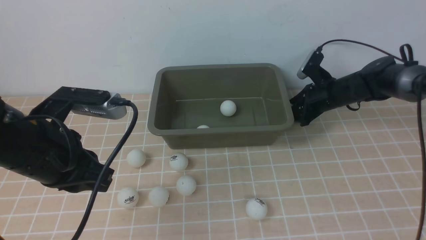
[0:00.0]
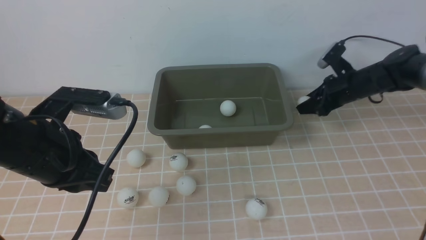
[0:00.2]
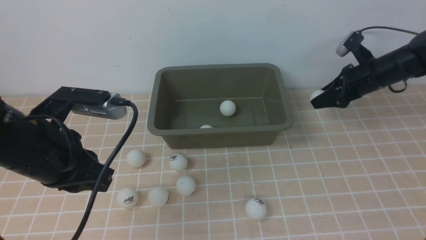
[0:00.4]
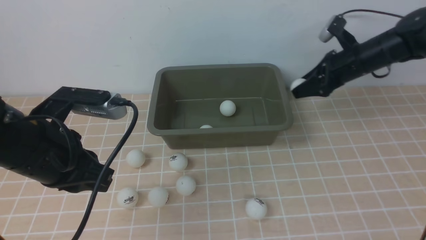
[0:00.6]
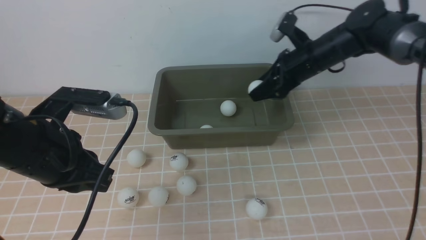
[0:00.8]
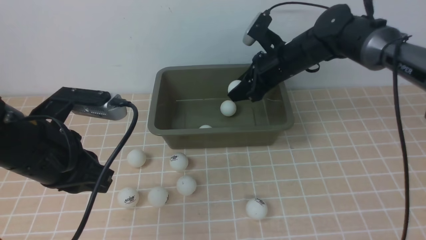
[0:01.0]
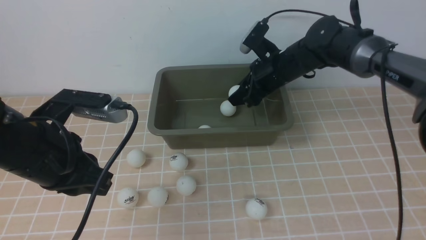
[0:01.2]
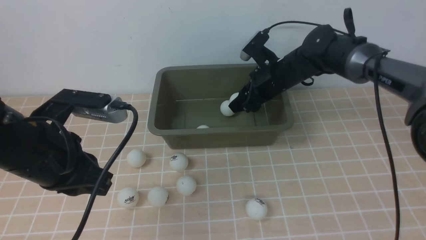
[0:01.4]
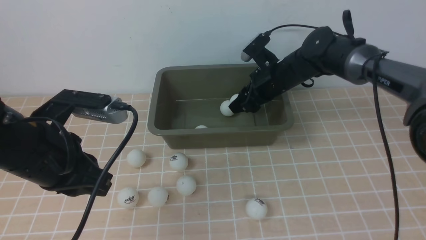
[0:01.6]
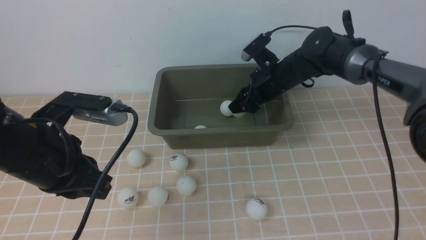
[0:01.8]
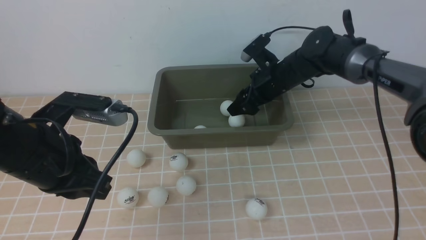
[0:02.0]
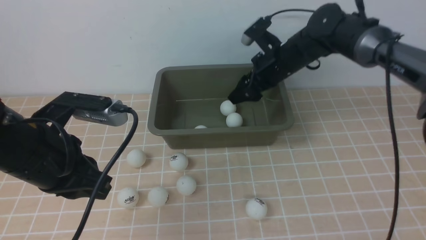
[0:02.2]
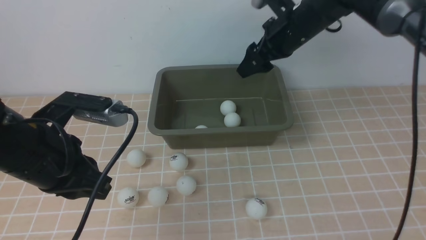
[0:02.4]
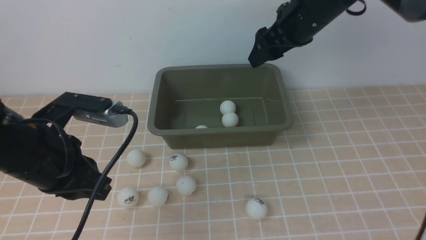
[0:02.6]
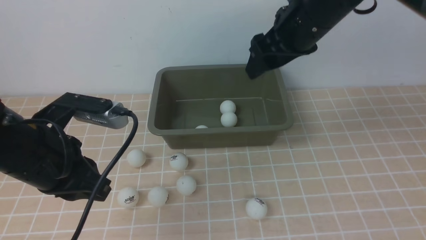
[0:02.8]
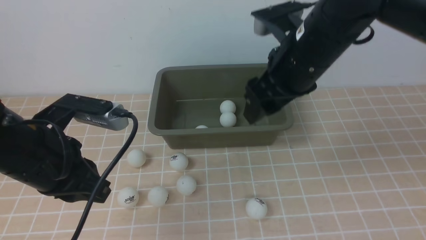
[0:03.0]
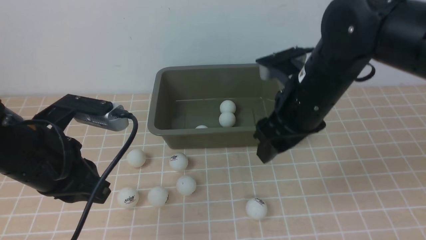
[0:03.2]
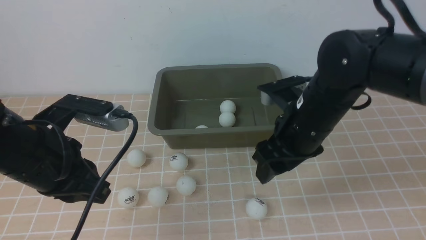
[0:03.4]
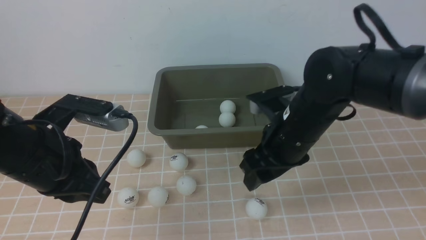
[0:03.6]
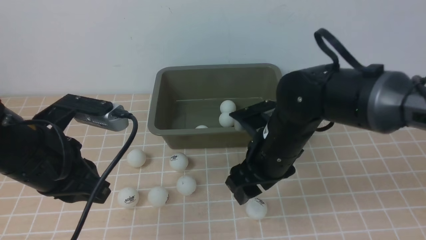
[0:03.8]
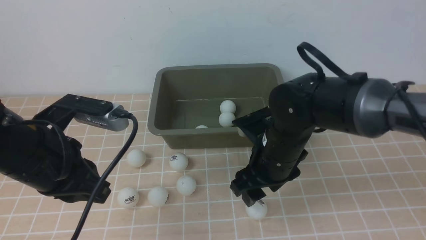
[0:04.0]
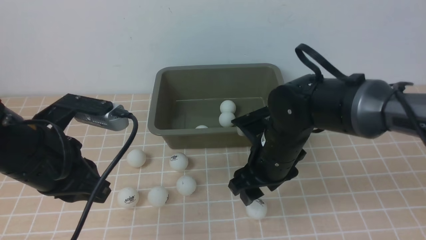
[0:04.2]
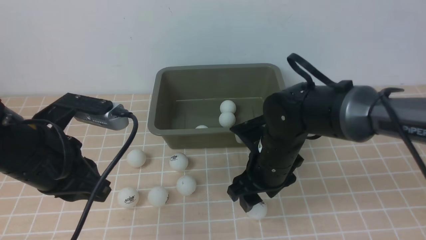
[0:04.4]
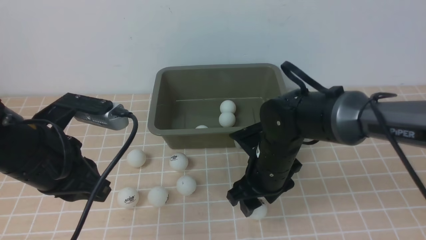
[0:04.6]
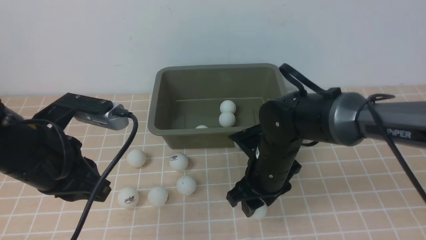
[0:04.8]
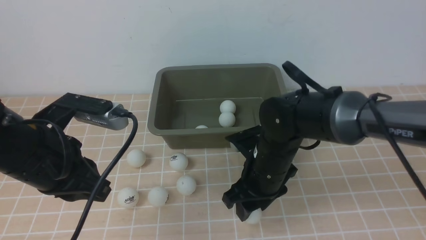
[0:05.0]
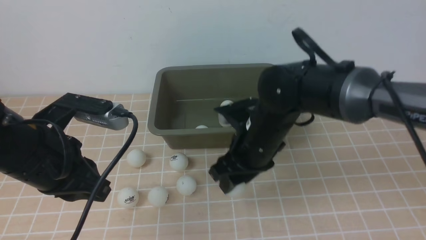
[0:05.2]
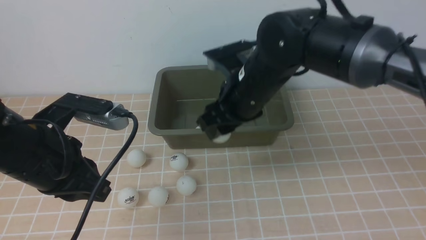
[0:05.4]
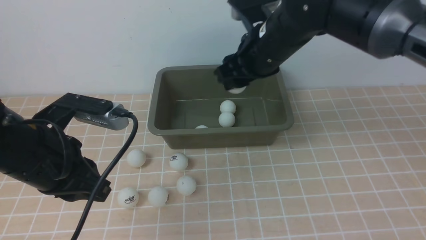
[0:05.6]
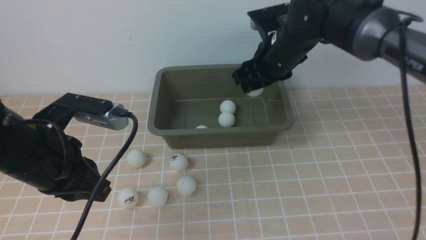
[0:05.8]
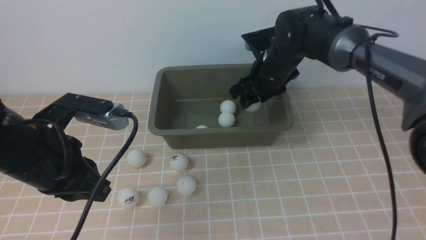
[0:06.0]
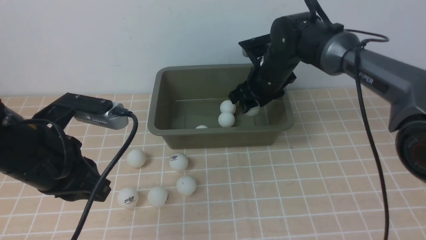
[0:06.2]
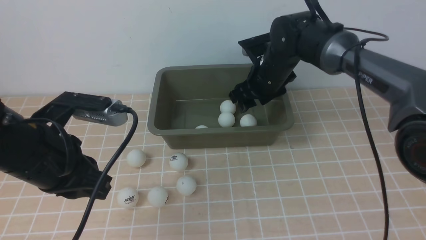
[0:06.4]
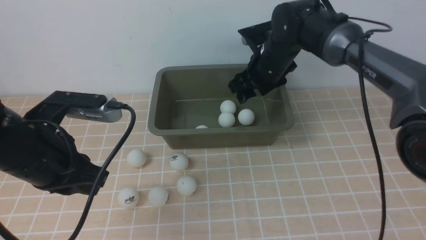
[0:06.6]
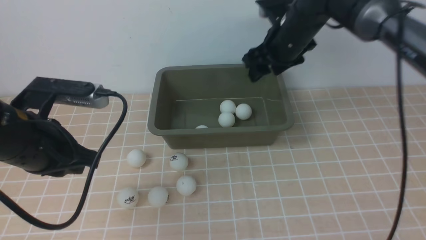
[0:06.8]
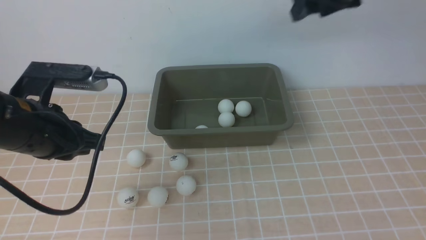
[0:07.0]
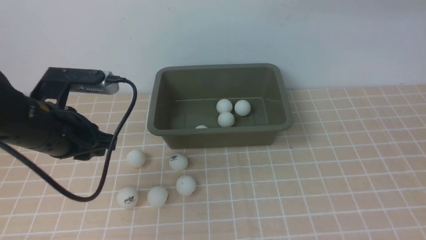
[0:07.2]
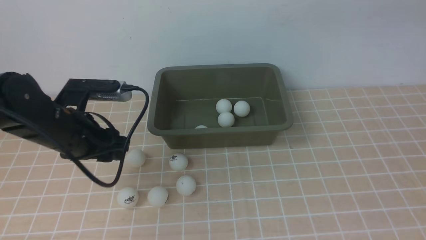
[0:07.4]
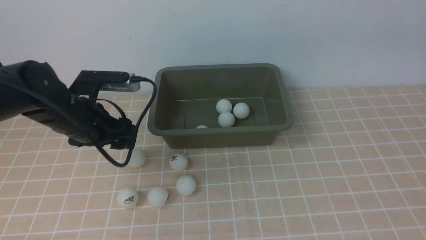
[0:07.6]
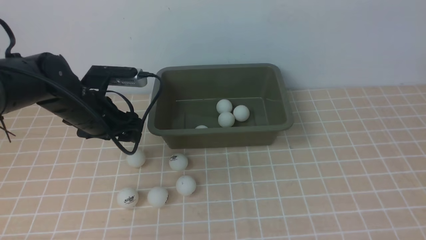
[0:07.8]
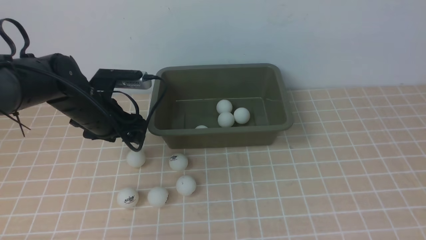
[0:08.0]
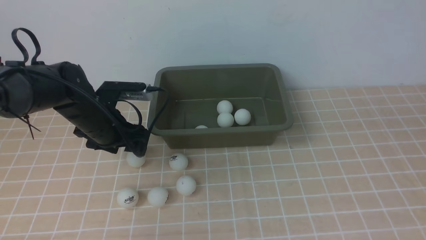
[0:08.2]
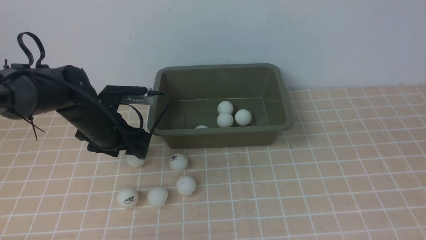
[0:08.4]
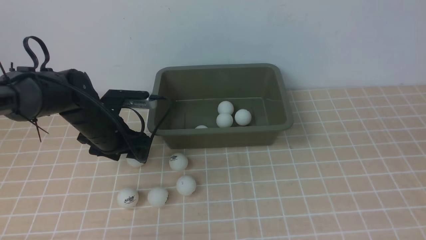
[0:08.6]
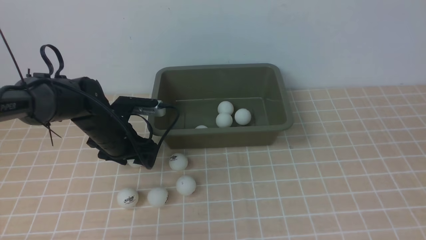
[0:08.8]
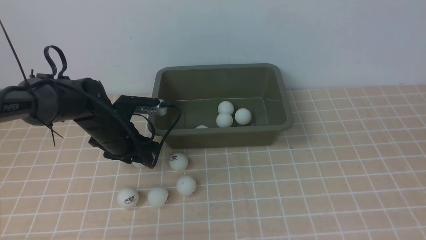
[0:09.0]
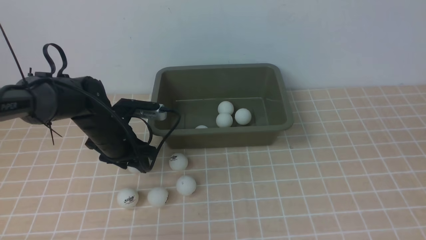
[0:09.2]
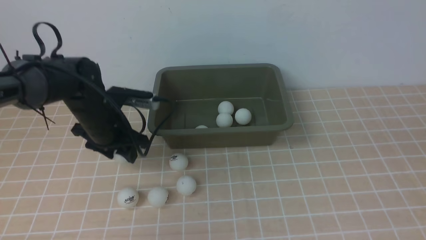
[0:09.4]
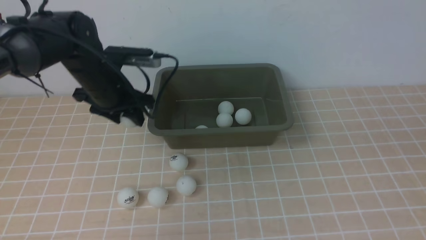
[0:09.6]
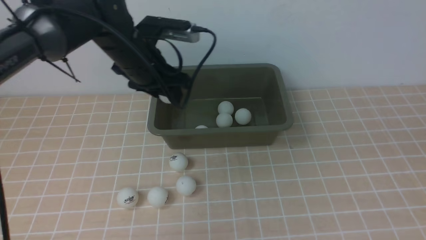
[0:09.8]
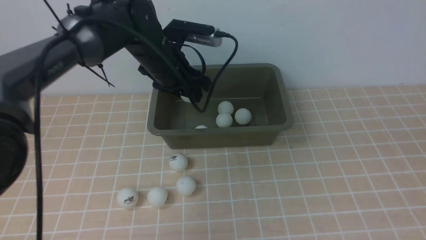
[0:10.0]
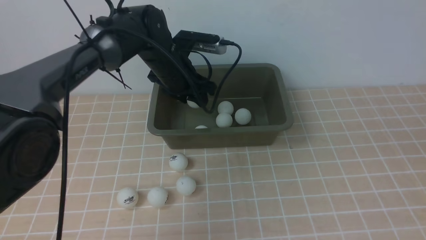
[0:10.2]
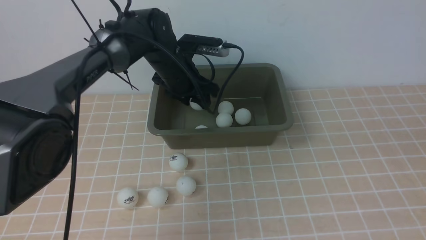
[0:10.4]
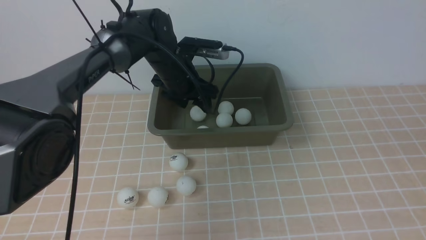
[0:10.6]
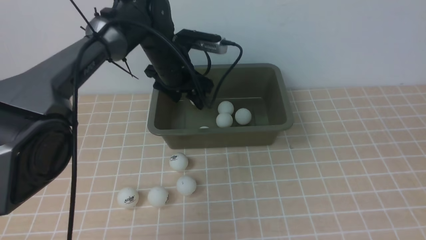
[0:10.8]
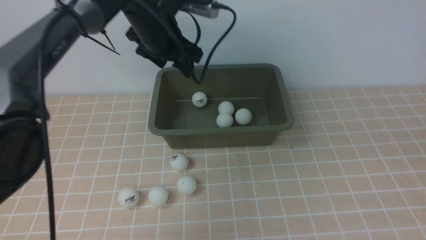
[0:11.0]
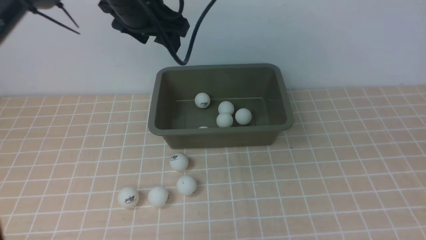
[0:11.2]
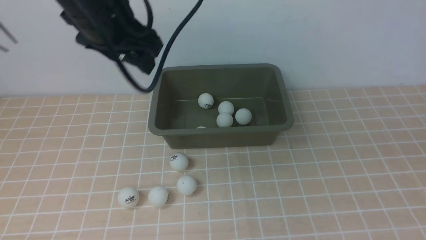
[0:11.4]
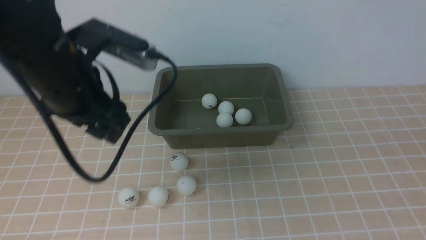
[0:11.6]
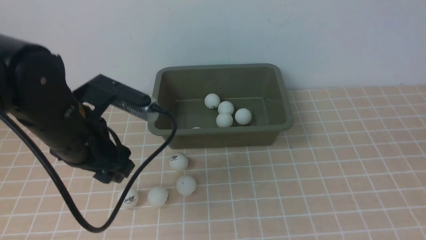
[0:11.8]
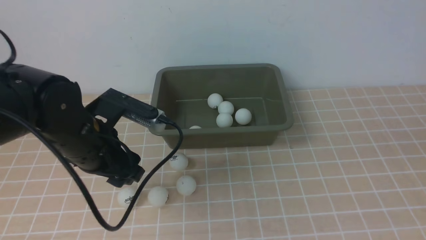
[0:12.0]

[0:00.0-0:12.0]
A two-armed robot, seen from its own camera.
Step, 0:01.2 to 0:01.6: use the right arm to put the table tennis ball into the box.
Step, 0:01.8 to 0:05.8: use the right arm to clamp the table tennis ball closest to it.
Step, 0:06.0 to 0:06.6: use the right arm to put the table tennis ball into the box.
Step, 0:06.8 to 0:09.6: use the left arm to clamp the table tennis ball closest to it.
Step, 0:09.8 to 0:10.6: use the left arm to put the table tennis ball into the box.
0:00.0 to 0:01.6: The right gripper travels to the left and upward by some 15 cm.
0:01.6 to 0:03.0: The right gripper travels upward and backward by some 20 cm.
0:03.0 to 0:04.4: The right gripper heads downward, covering about 15 cm.
0:04.4 to 0:06.0: The right gripper shifts roughly 15 cm forward and upward.
0:06.0 to 0:07.6: The right gripper moves upward, backward and to the right, about 40 cm, while the left gripper travels forward and downward by some 10 cm, and opens.
0:07.6 to 0:09.0: The left gripper travels downward and forward by some 10 cm. Meanwhile the right gripper goes some 20 cm backward and downward, and closes up.
0:09.0 to 0:10.4: The left gripper is displaced to the right, forward and upward by some 15 cm.
0:10.4 to 0:12.0: The left gripper shifts approximately 20 cm backward and to the left.

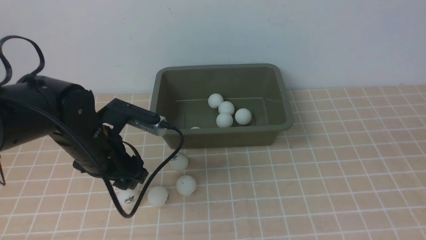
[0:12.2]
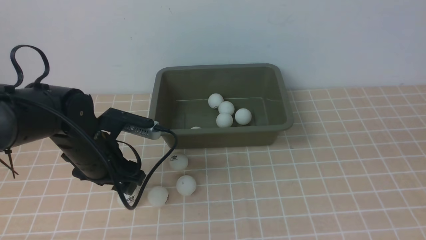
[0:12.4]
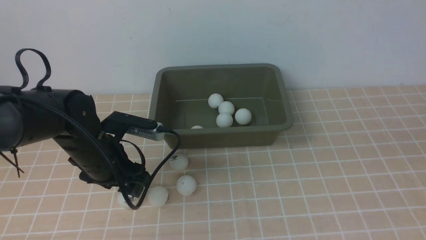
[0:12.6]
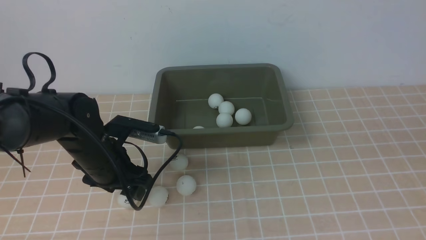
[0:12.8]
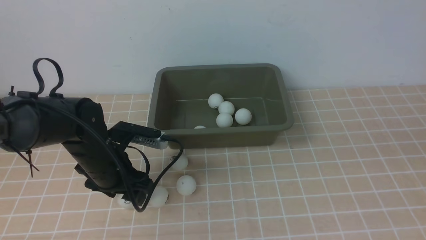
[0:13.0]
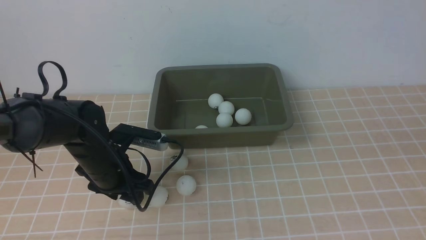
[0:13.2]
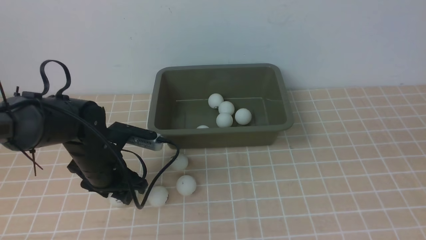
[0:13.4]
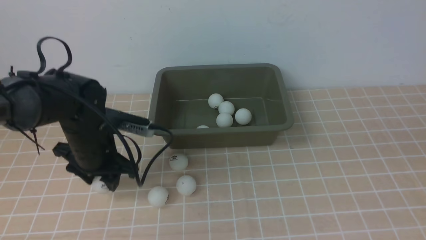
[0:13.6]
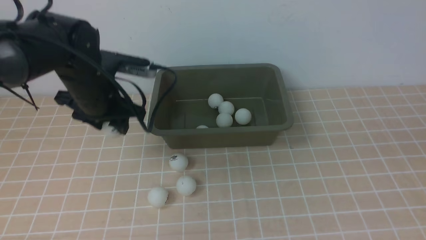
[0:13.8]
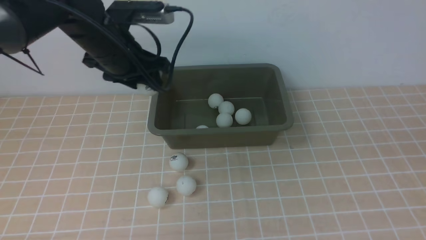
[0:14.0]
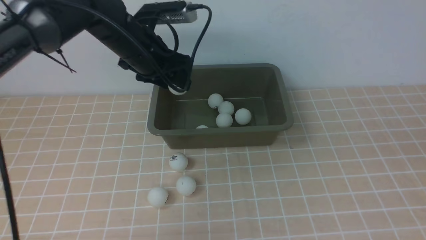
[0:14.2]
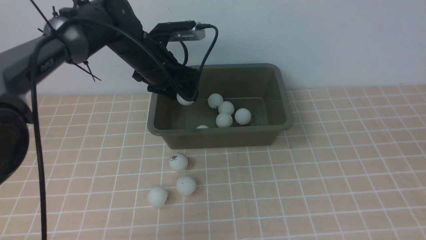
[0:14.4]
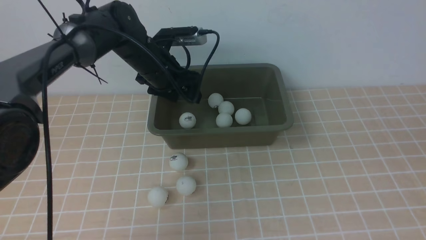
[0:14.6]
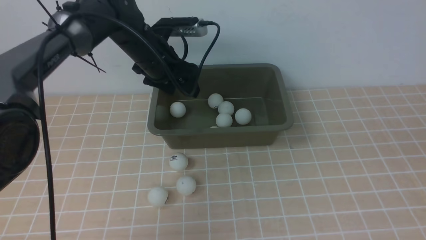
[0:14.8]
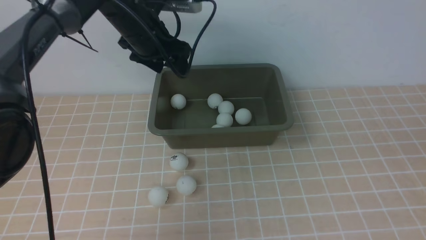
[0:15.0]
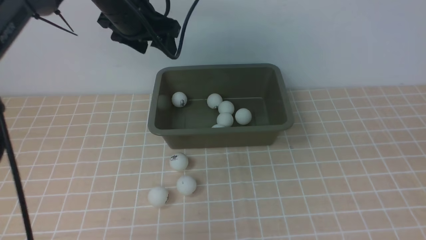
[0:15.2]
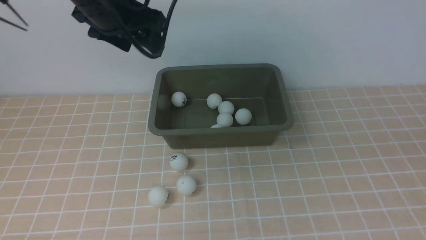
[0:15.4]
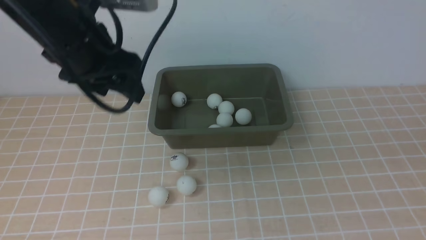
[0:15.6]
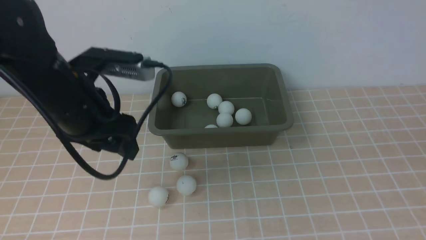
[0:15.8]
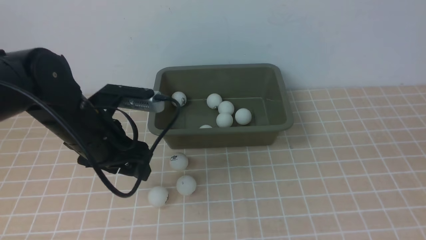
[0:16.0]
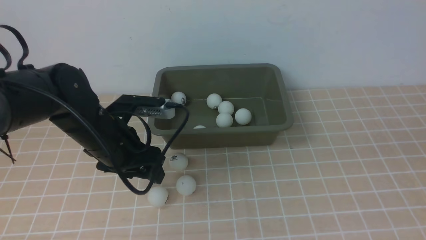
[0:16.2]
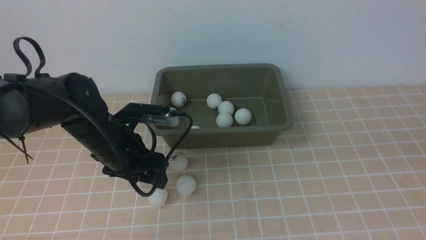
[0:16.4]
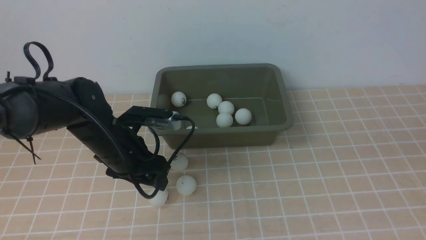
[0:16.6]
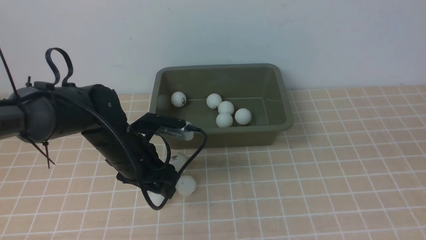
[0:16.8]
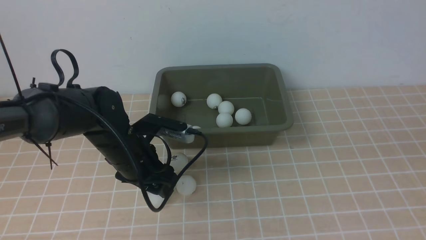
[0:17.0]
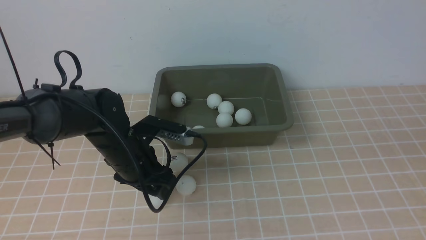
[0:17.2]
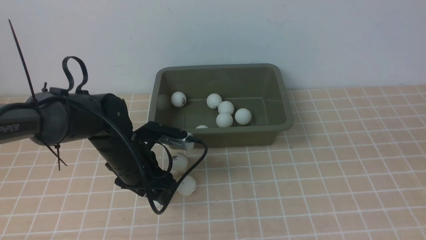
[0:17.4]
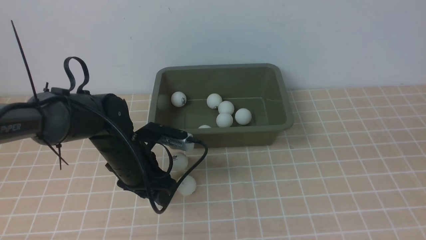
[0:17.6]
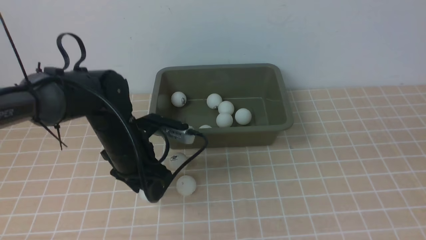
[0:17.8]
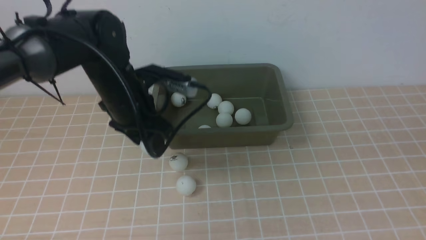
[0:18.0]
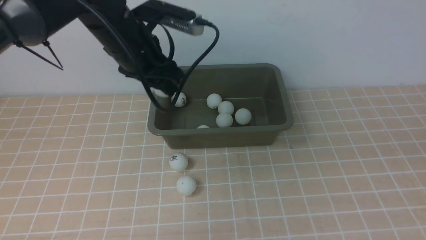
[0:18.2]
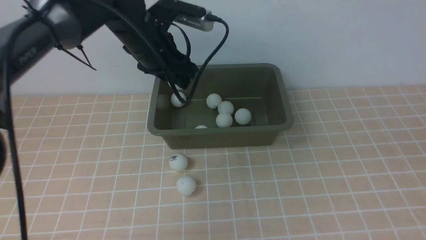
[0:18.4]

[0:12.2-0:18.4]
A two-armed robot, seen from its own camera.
Step, 0:13.8 to 0:14.8: use the left arm to put the table tennis ball into the box.
Step, 0:15.0 to 0:18.0: use the left arm to clamp the table tennis ball closest to it.
0:12.2 to 0:13.8: The left gripper is displaced forward by approximately 5 cm.
0:13.8 to 0:15.4: The left gripper moves up and down over approximately 15 cm, changing direction 2 times.
0:15.4 to 0:16.8: The left gripper goes roughly 20 cm downward and backward.
0:16.8 to 0:18.4: The left gripper moves upward and forward, roughly 15 cm.
